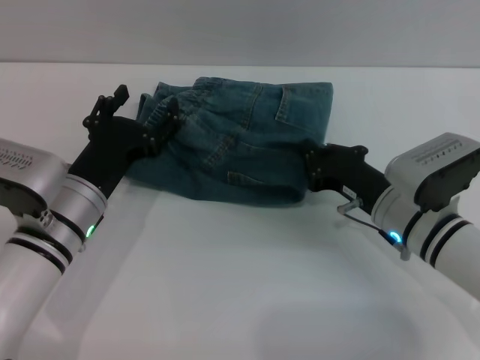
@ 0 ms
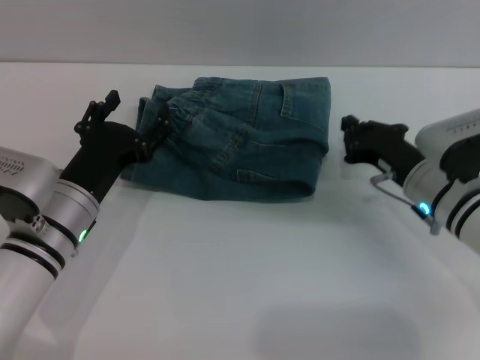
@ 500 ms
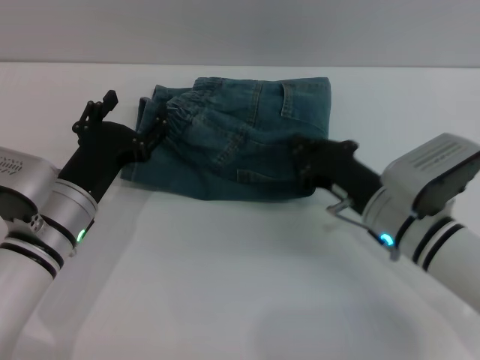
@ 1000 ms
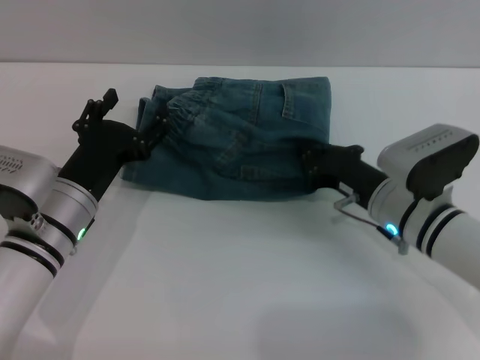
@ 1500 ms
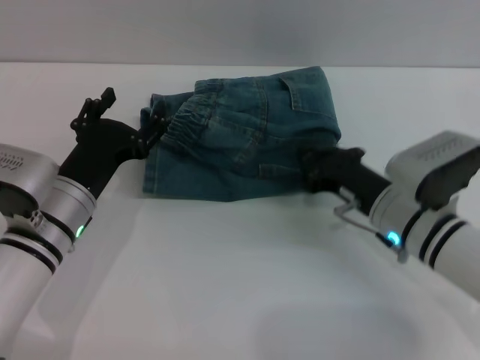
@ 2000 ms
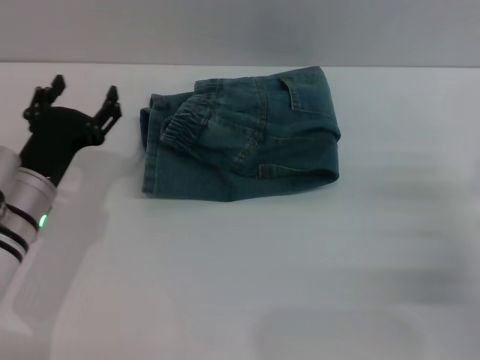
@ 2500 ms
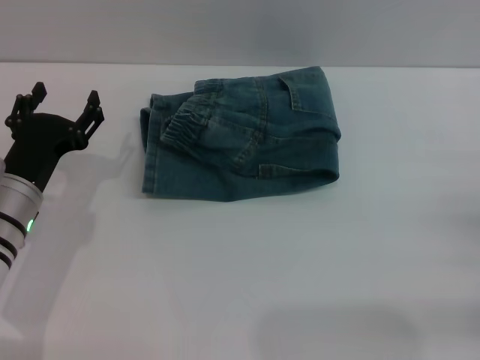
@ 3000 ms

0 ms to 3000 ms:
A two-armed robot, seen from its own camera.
Step, 0 ms to 2000 ms: Place the folded trousers onto the center area with the right grippers.
0 ms to 1500 ms: The grippers make only small movements.
1500 ms to 3000 ms: The left gripper ends up roughly 5 cm from where it was; the right gripper heads to the right and backward, covering some 20 cm.

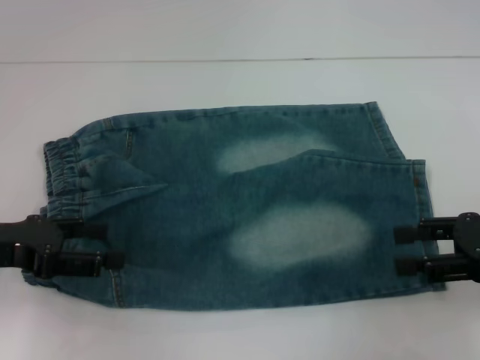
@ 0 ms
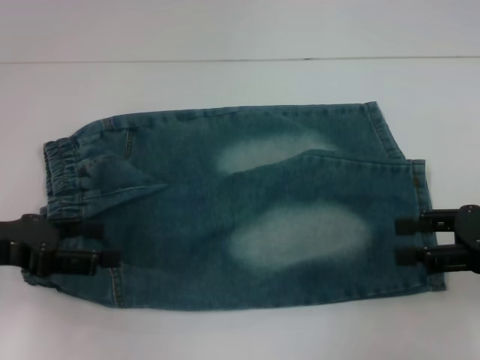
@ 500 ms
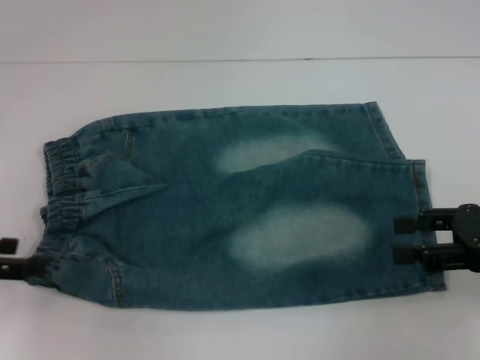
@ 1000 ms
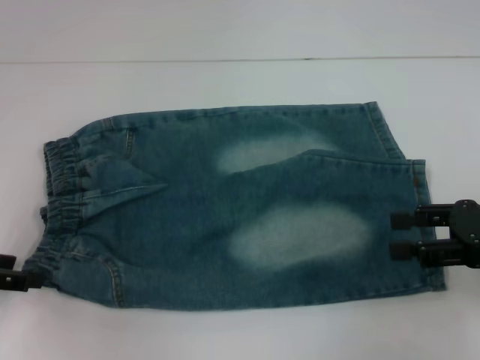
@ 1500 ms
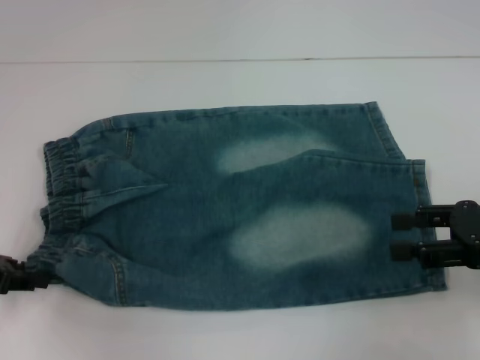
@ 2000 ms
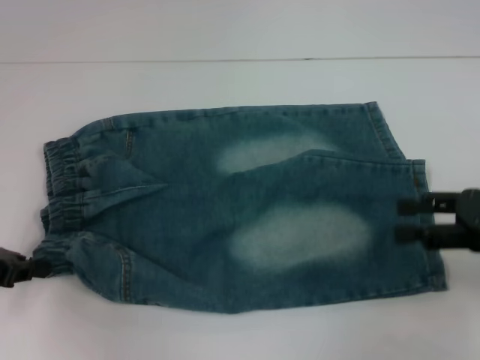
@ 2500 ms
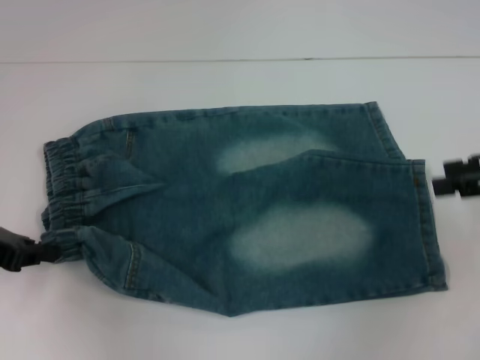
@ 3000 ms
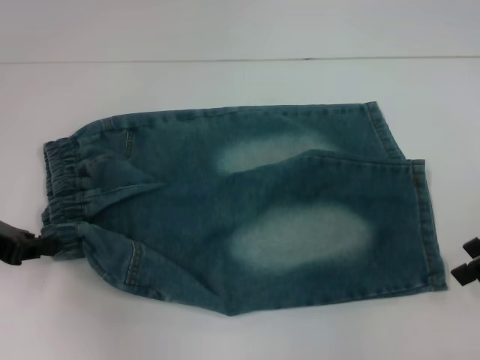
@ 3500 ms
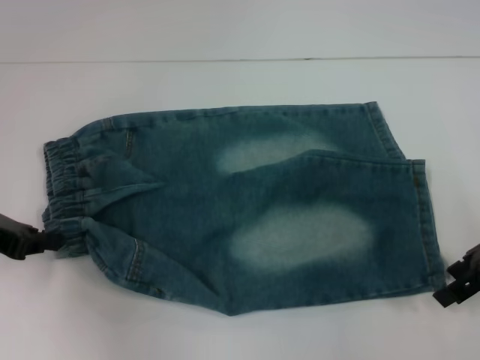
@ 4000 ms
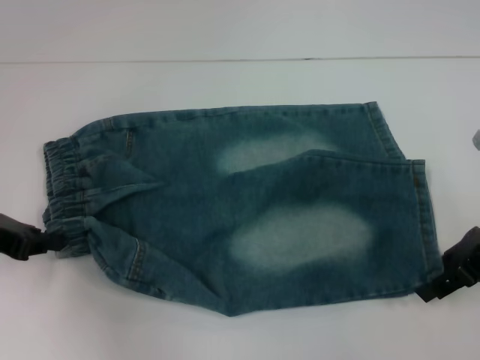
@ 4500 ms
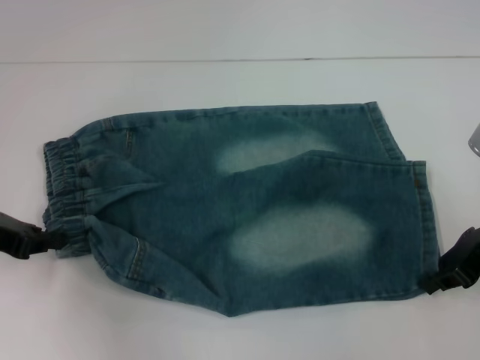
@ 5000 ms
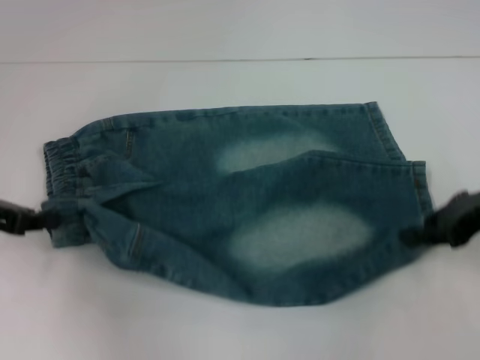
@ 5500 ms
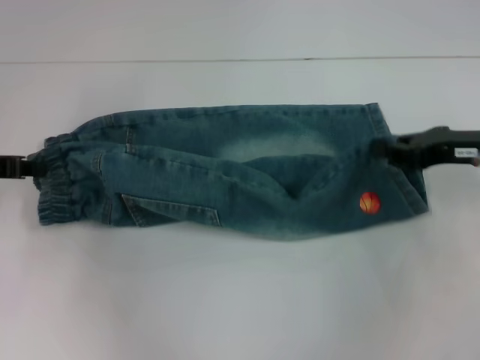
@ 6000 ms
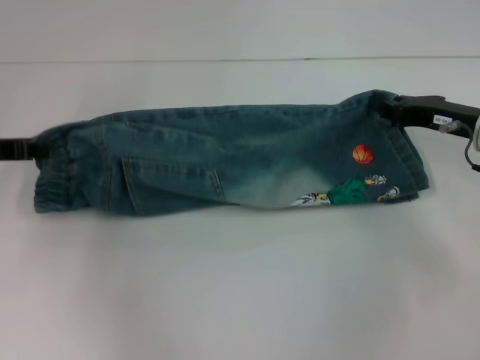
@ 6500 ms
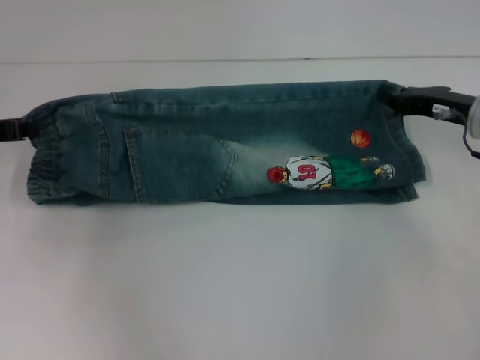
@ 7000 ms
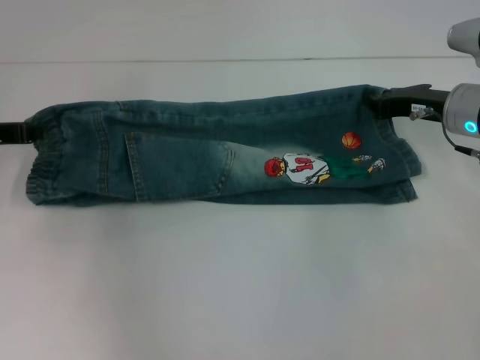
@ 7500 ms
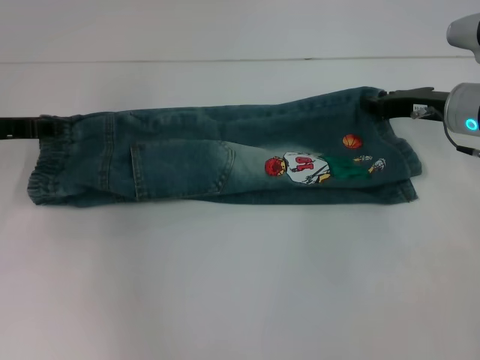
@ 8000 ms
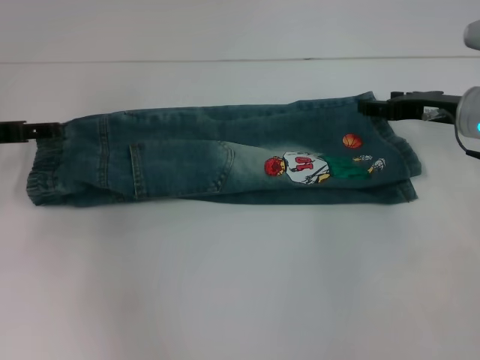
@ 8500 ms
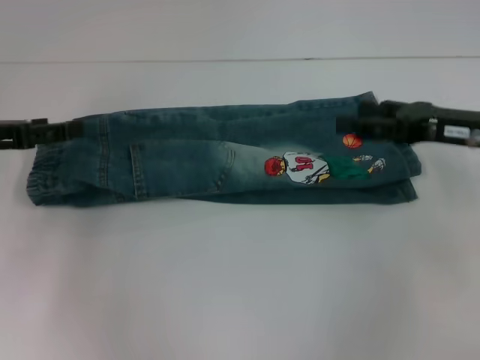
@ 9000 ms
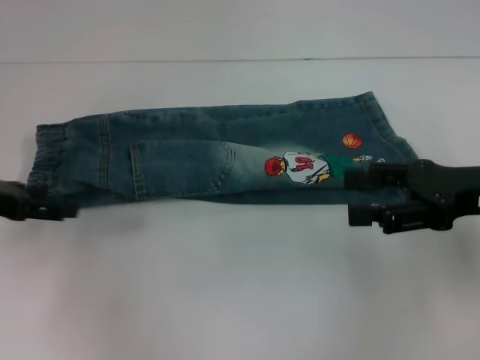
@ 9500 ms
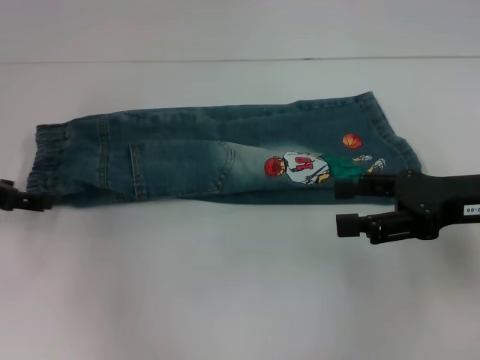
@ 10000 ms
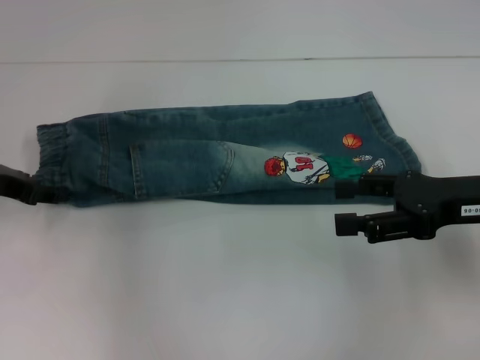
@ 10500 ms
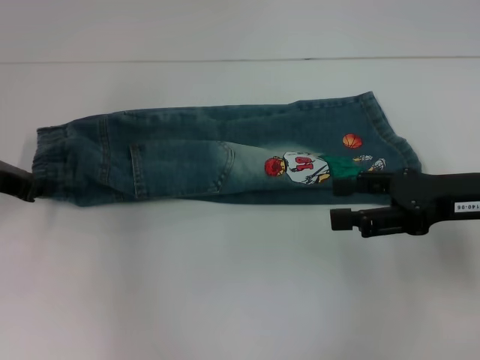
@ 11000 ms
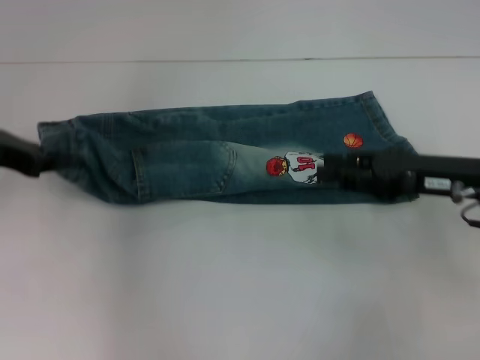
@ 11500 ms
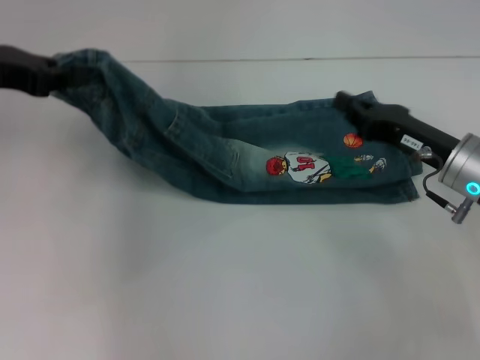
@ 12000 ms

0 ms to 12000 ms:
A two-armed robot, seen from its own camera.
Step, 0 ms to 2000 ms: Hold the lower left waistband with your left hand.
Step, 2500 ms to 4500 ms: Grab the lower right pant leg with your right hand.
Step, 5000 ms to 8500 ms: Fold upward with your right hand.
Step, 9000 ms to 10500 ms: Hold the waistband with your left hand.
0 ms to 2000 ms: The left gripper closes up.
2000 ms to 4000 ms: The right gripper travels forward by some 5 cm. Meanwhile the left gripper closes its fingers.
4000 ms to 6000 ms: The right gripper closes.
6000 ms to 8000 ms: The right gripper moves forward, some 5 cm.
8000 ms to 10000 ms: The left gripper opens its fingers, while the right gripper is displaced backward by about 10 cm, and opens its fingers.
10000 ms to 12000 ms: The left gripper heads upward, covering roughly 10 cm, and closes its fingers. The right gripper is displaced downward by roughly 5 cm, and closes up.

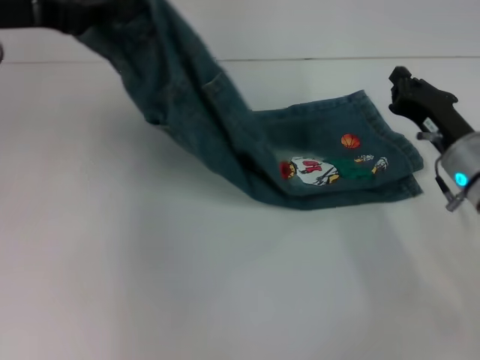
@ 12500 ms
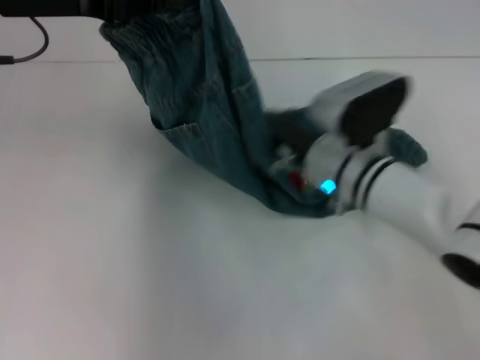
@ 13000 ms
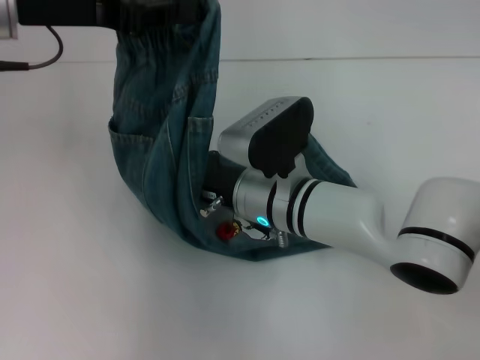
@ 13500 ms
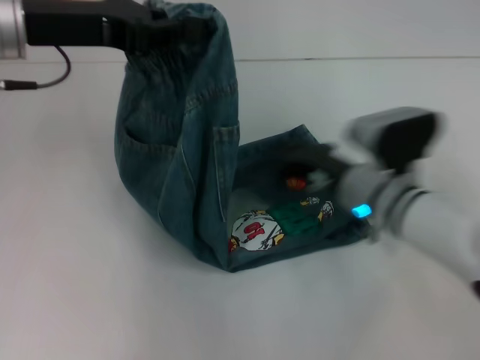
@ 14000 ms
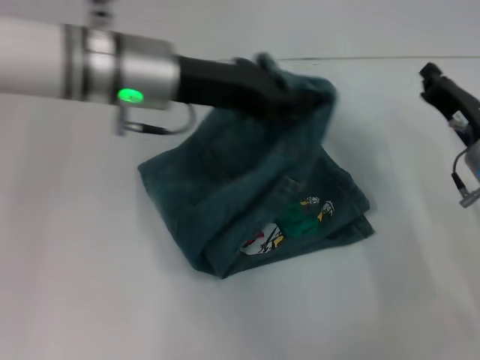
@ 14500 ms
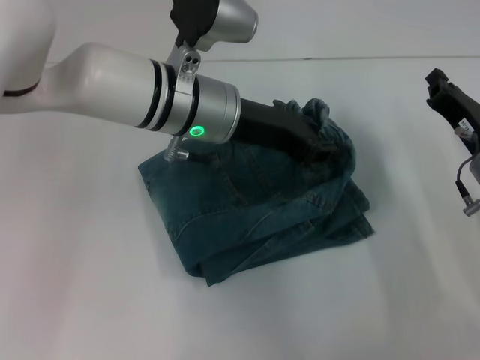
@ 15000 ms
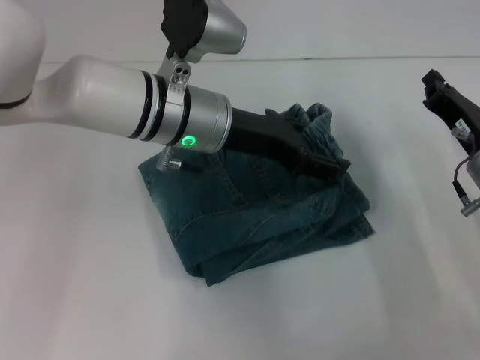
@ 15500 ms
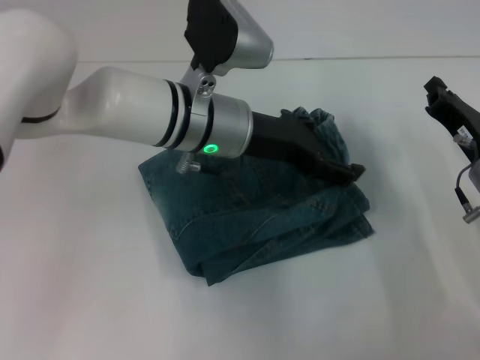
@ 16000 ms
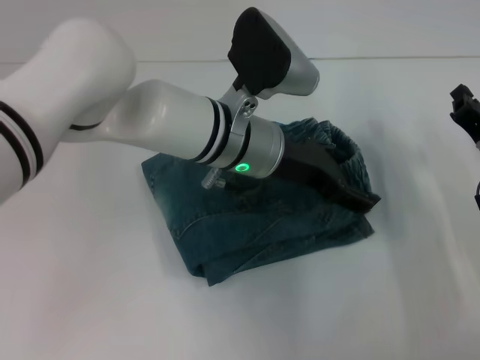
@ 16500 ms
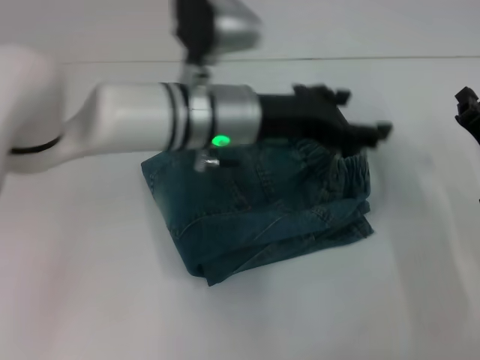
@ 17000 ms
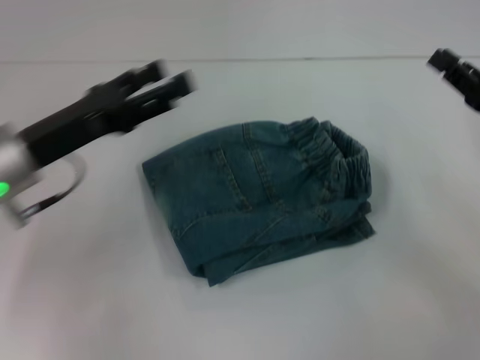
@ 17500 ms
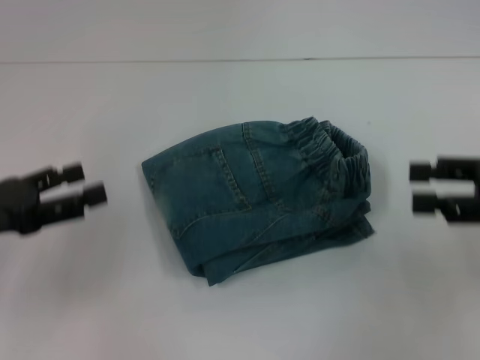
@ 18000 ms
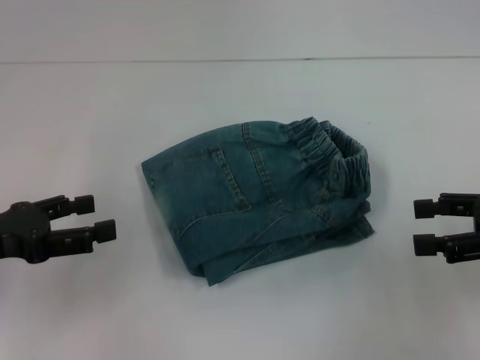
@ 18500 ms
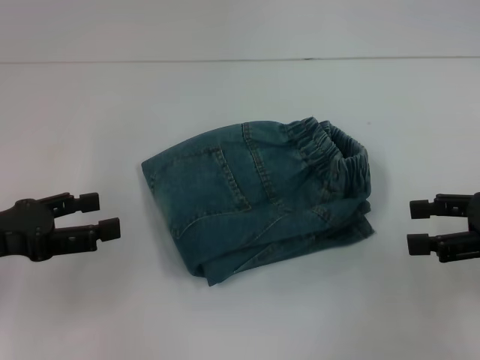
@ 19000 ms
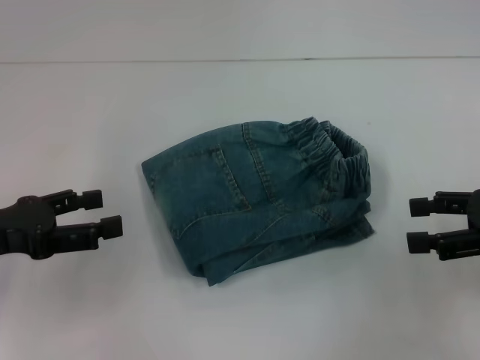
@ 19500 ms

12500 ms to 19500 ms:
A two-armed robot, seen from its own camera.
Step, 14000 ms to 16500 ms: Fold to the right with your left hand.
12500 ms to 14500 ms: The right gripper reaches about 20 cm to the left, then returns; the left gripper heads to the right, covering approximately 15 cm.
14500 ms to 16000 ms: The left gripper moves to the right, about 5 cm, and opens.
16000 ms to 17500 ms: The left gripper goes about 20 cm to the left; the right gripper heads upward and to the right, covering about 10 cm.
17500 ms to 19500 ms: The left gripper travels to the left and backward by roughly 10 cm, while the right gripper opens up.
